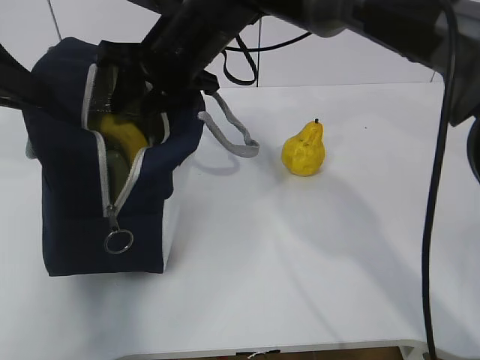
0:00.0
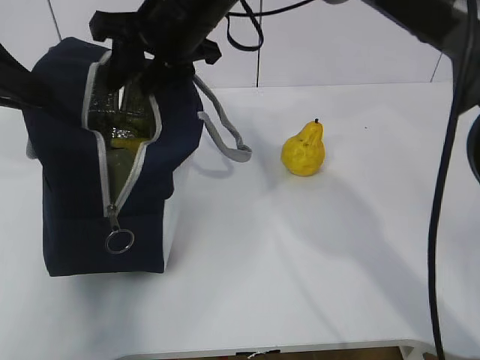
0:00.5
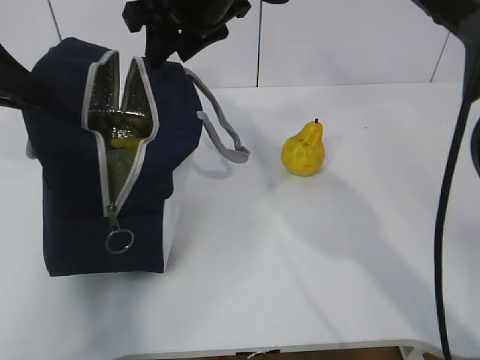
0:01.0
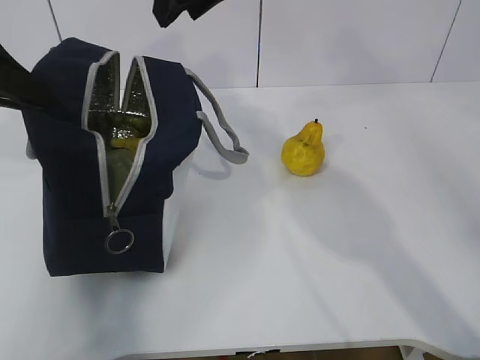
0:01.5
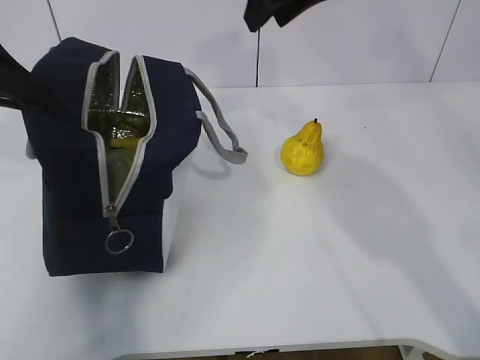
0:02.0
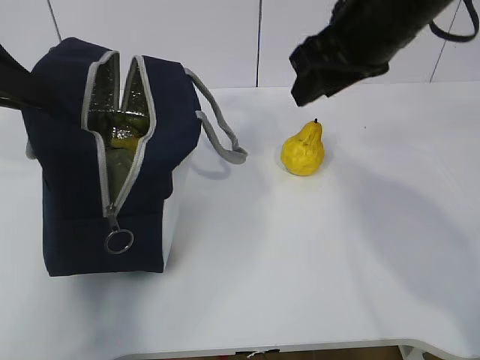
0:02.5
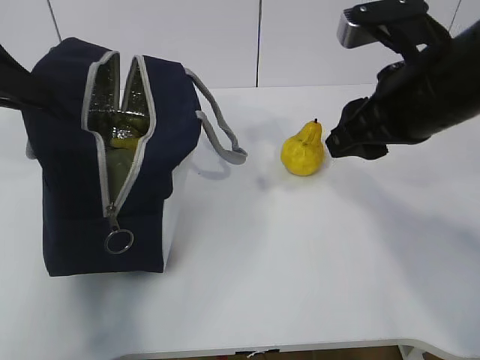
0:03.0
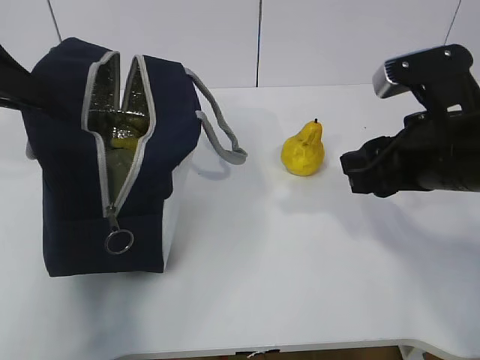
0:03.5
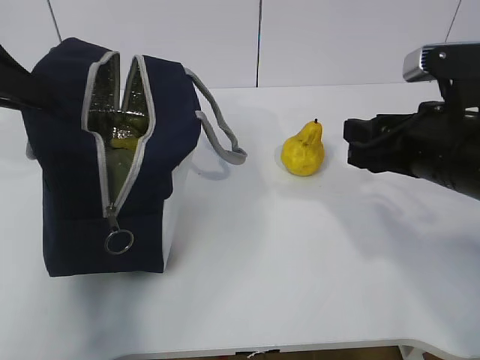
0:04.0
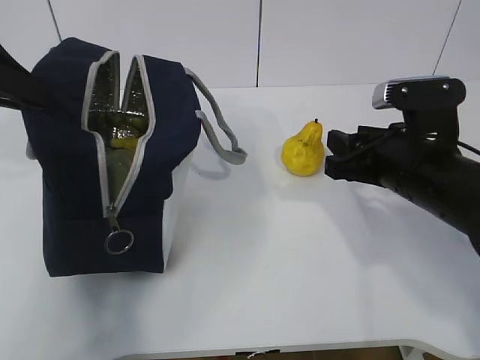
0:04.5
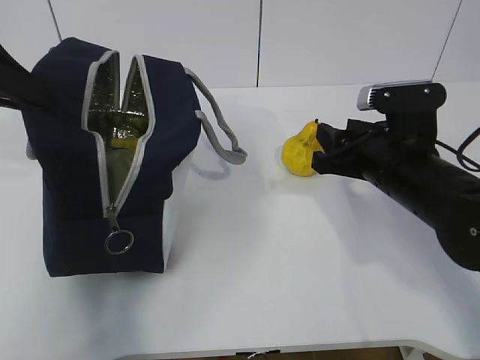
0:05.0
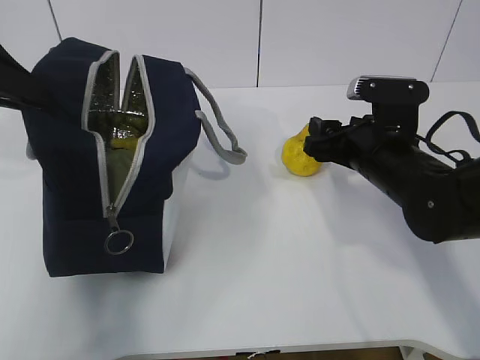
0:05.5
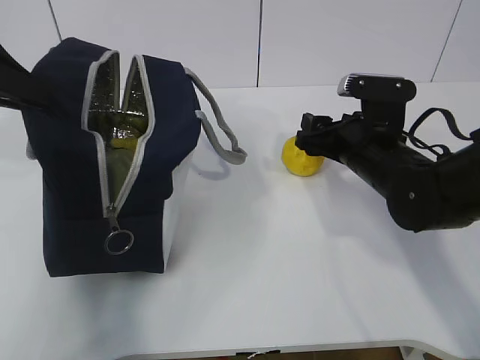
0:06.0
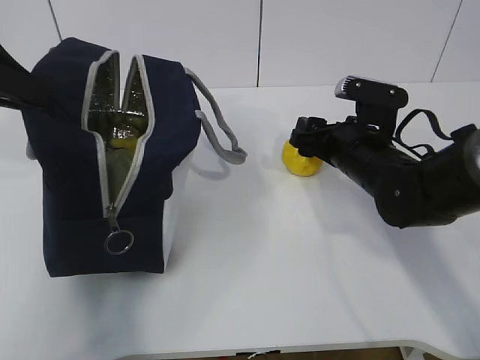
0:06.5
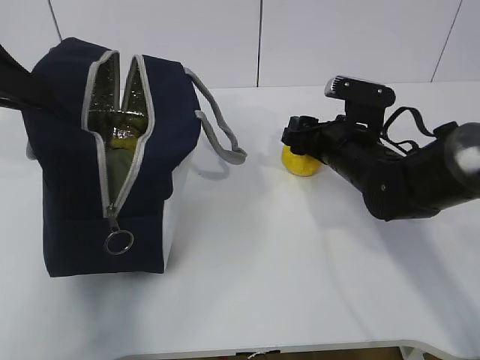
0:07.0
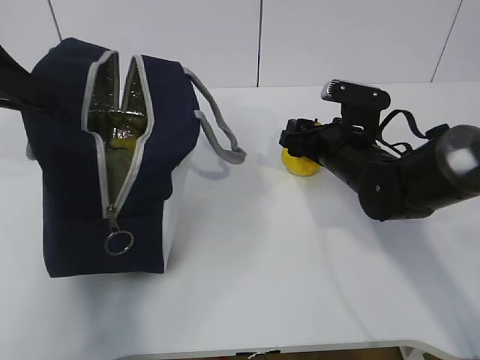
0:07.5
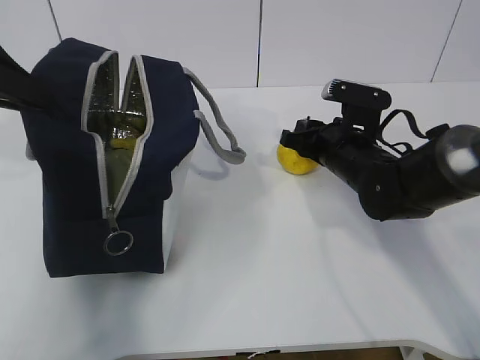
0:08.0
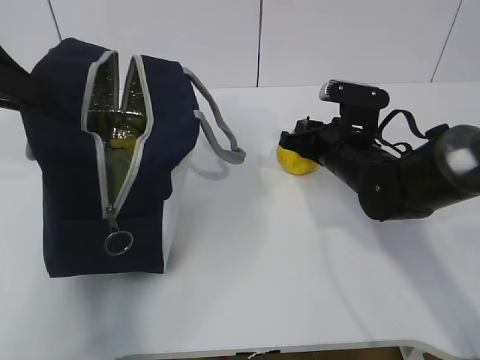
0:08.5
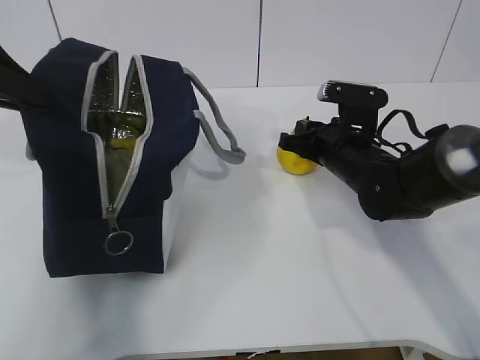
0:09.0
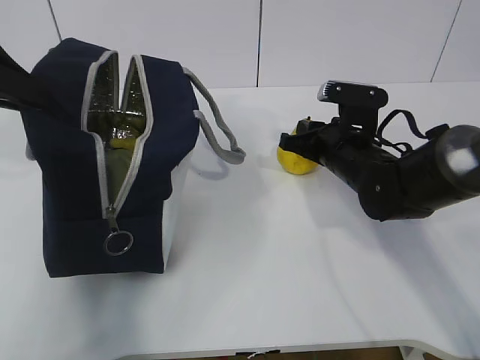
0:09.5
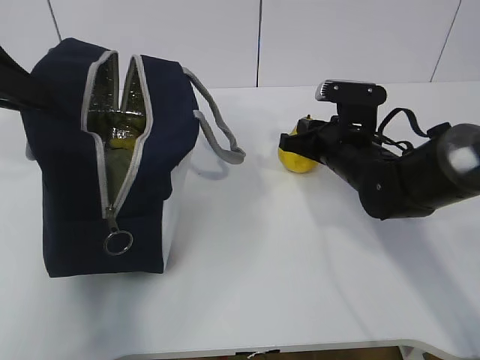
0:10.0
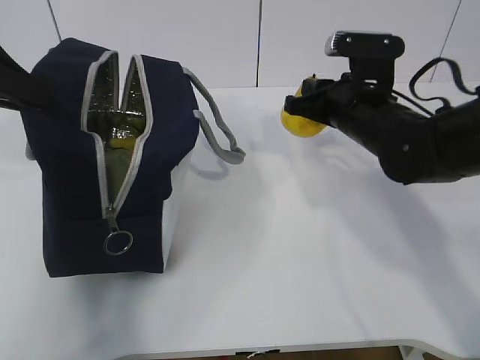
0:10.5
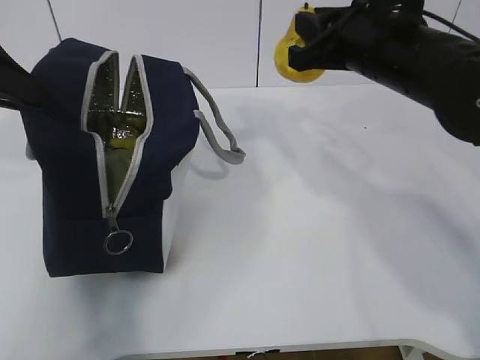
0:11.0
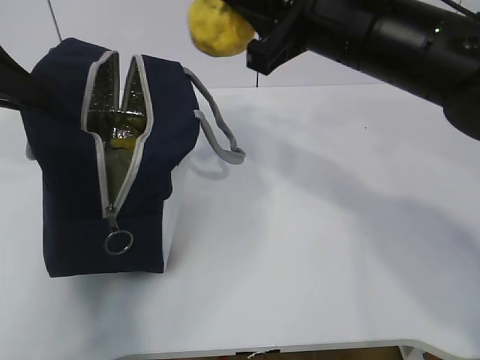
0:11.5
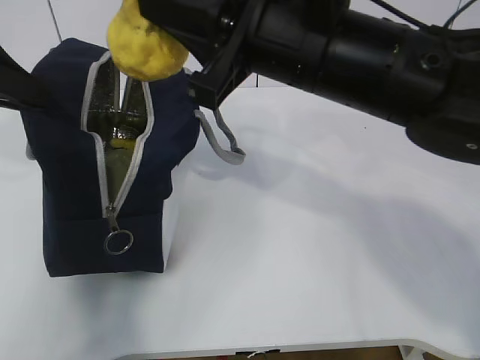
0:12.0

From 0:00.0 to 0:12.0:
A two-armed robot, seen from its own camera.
Step, from 0:00.0 to 0:03.0: Grab the pear with your right hand.
Step, from 0:07.5 to 0:10.0: Grab the lunch bag with your right hand.
From 0:00.0 to 0:02.0: The right gripper heads to the right and upward, covering roughly 15 cm.
From 0:02.0 to 0:04.0: The right gripper shifts some 20 cm downward, backward and to the right.
From 0:04.0 to 0:06.0: The right gripper travels forward and downward by roughly 15 cm.
From 0:06.0 to 0:08.0: The right gripper closes.
From 0:08.0 to 0:10.0: There are only small adjustments of the grippers.
From 0:10.0 to 0:12.0: The right gripper goes about 25 cm upward, backward and to the left.

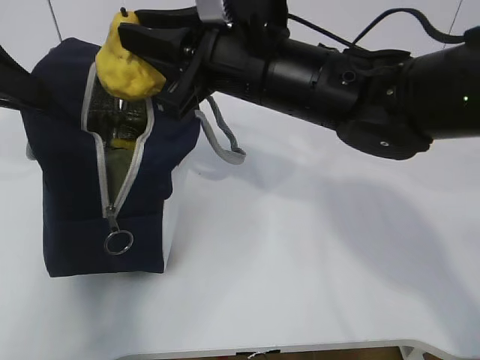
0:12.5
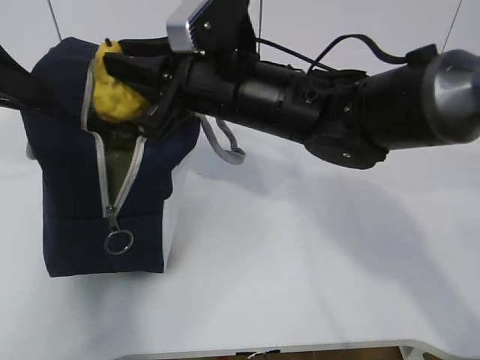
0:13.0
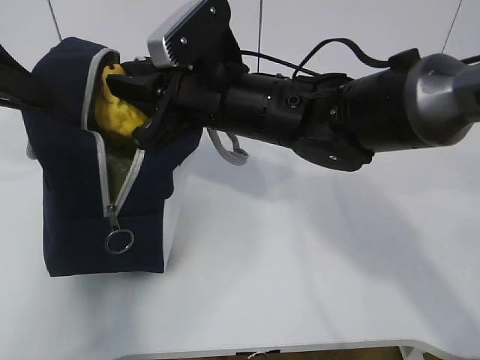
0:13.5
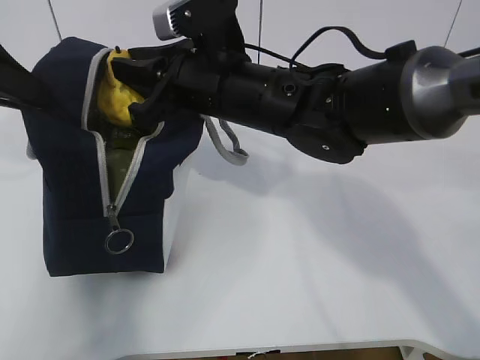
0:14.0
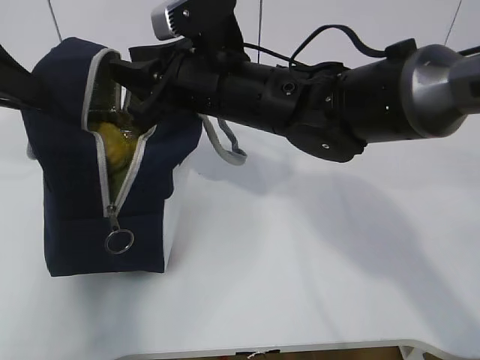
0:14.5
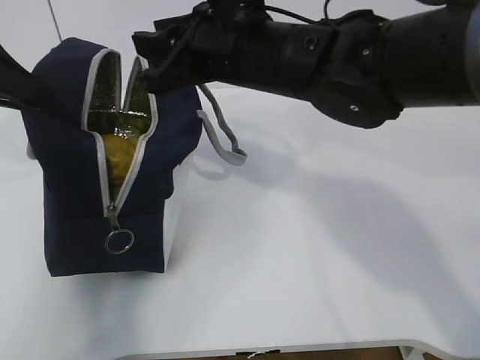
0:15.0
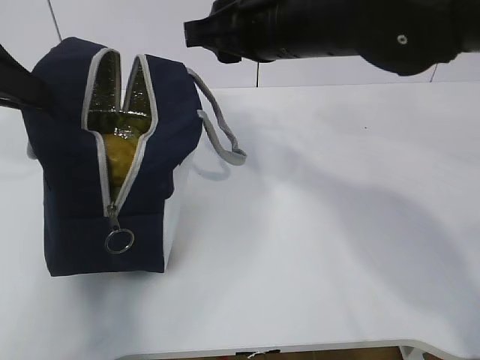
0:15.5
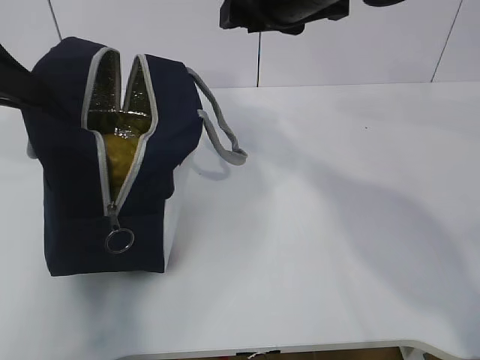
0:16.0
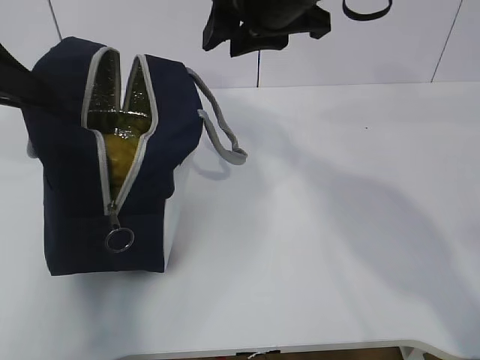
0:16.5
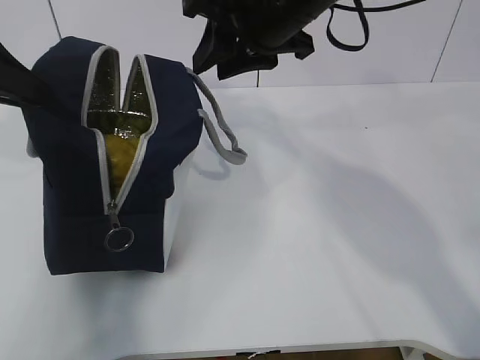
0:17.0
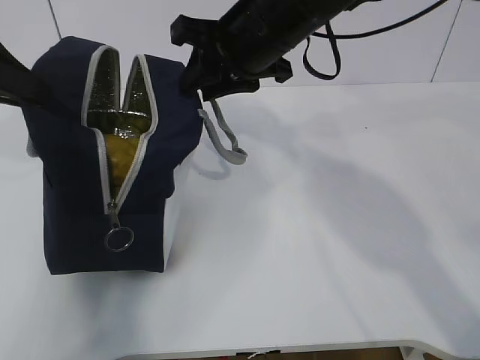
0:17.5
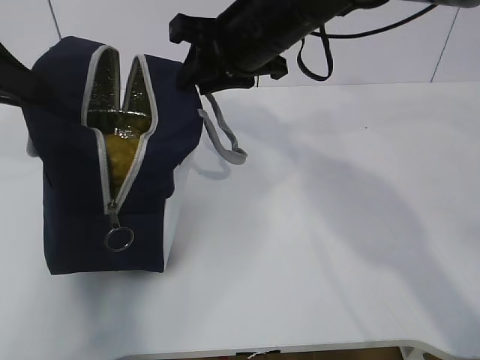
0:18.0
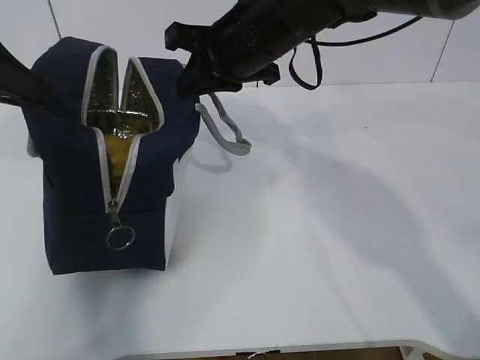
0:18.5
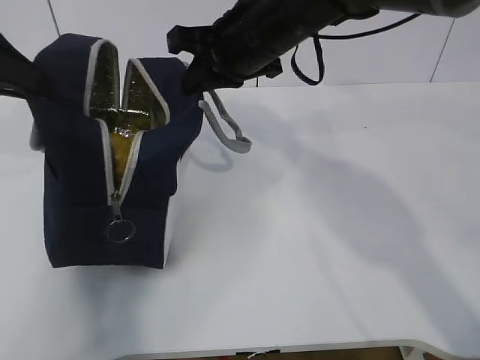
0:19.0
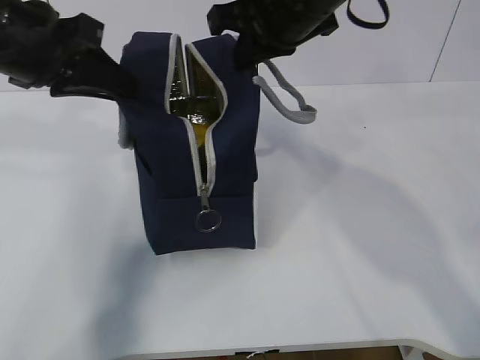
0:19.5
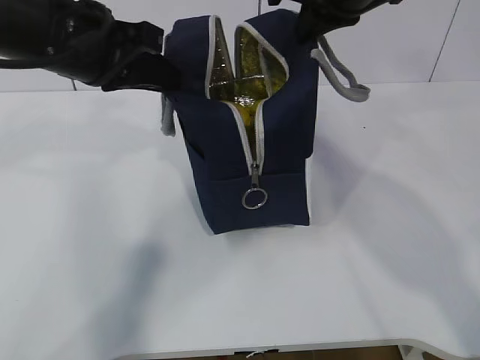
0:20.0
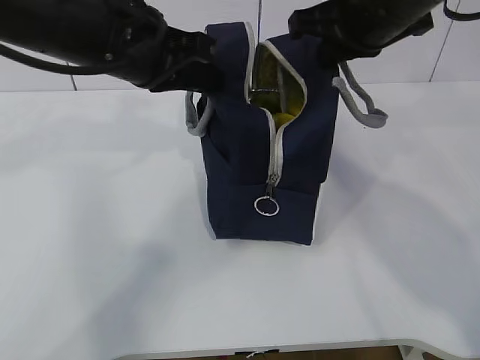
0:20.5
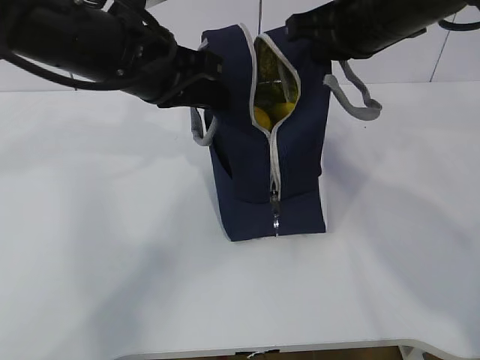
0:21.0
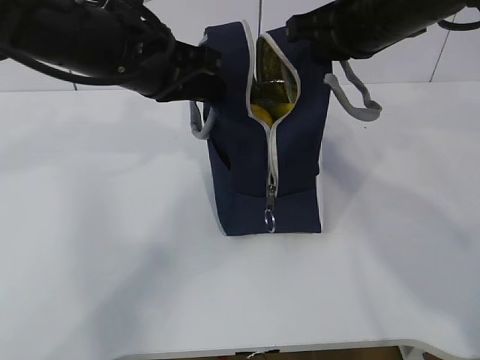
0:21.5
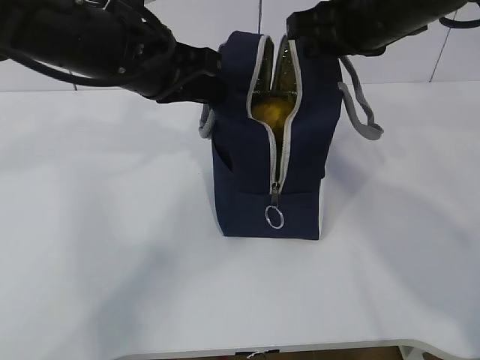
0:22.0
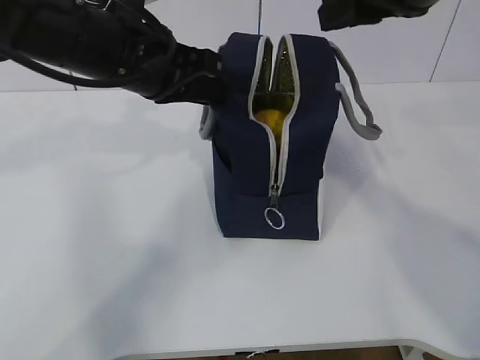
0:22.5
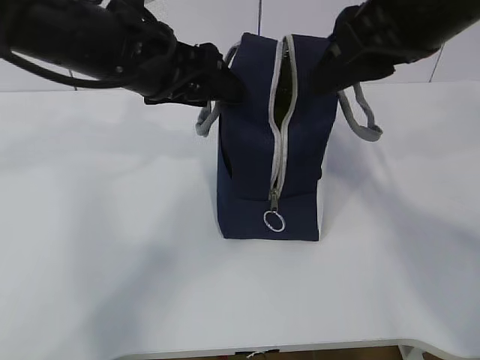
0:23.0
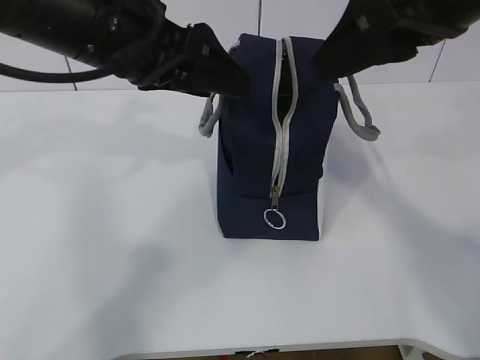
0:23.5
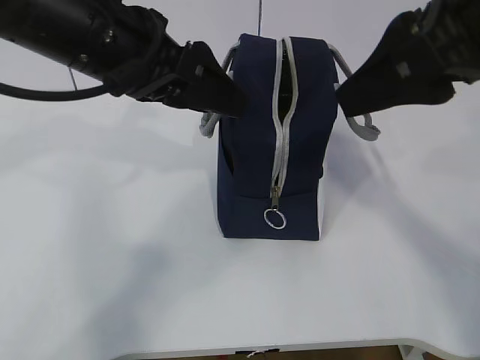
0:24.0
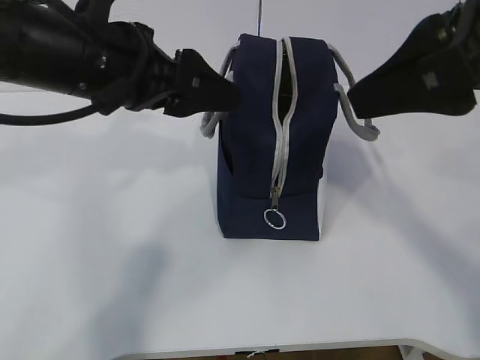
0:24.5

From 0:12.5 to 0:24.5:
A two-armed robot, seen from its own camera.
Step, from 0:14.5 to 0:24.0: Grab the lunch bag with your left hand.
From 0:12.5 to 0:14.5: The right gripper moves some 5 cm.
From 0:14.5 to 0:16.5: The right gripper heads upward and to the right, covering roughly 10 cm.
From 0:16.5 to 0:18.5: The right gripper is displaced downward by roughly 5 cm, and closes.
From 0:18.5 to 0:20.5: The right gripper is displaced to the right by roughly 10 cm. The left gripper heads to the right, covering approximately 15 cm.
From 0:20.5 to 0:22.5: The right gripper goes about 5 cm backward, and opens.
From 0:22.5 to 0:24.5: The left gripper opens. Meanwhile the right gripper travels backward by approximately 10 cm.

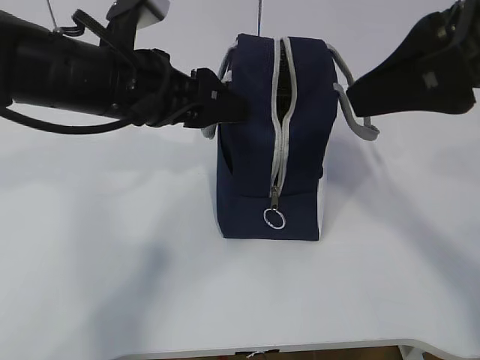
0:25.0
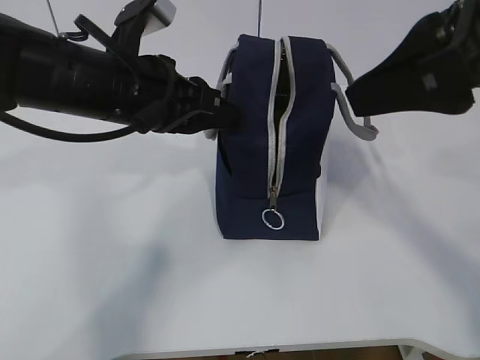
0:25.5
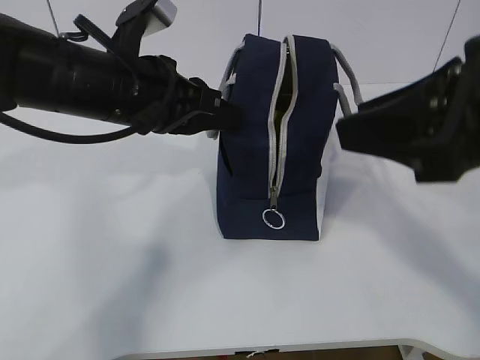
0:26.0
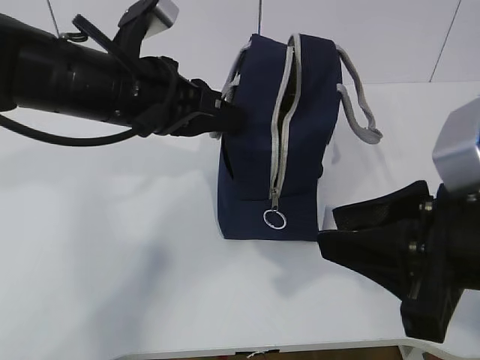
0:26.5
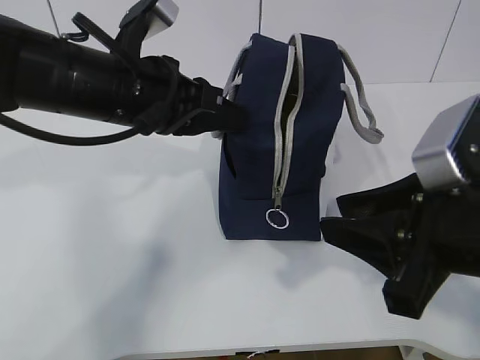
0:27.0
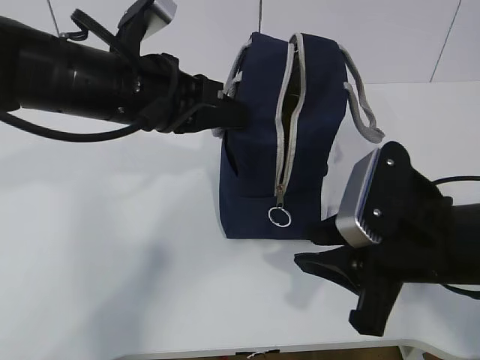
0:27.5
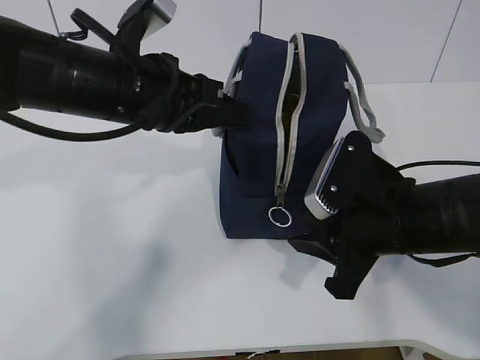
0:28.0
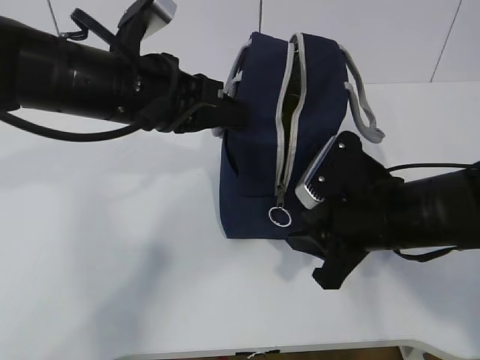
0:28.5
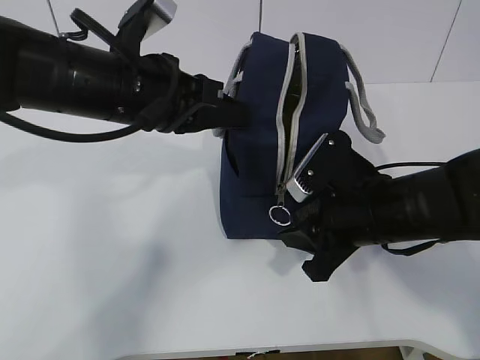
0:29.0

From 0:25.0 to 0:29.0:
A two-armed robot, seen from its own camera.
From 0:25.0 to 0:27.0: The left gripper closes up, while the right gripper shifts some 15 cm downward.
From 0:27.0 to 0:29.0: The right gripper goes roughly 10 cm forward and downward.
